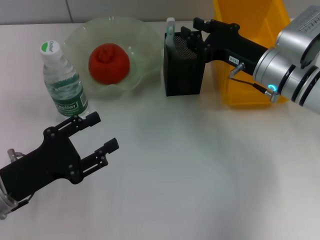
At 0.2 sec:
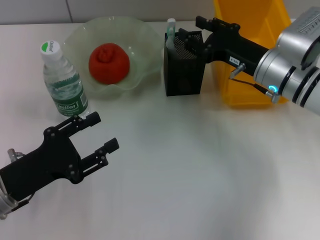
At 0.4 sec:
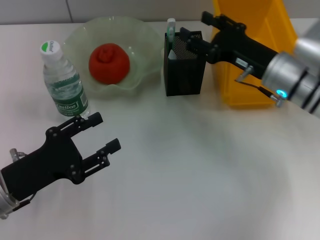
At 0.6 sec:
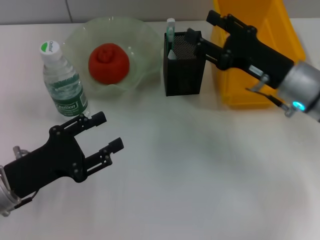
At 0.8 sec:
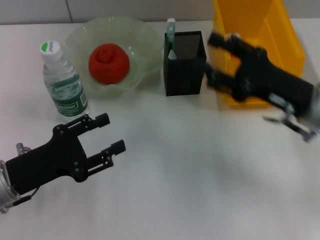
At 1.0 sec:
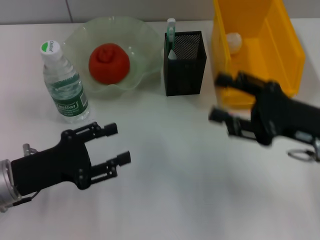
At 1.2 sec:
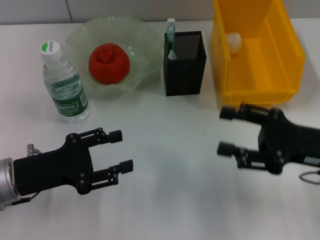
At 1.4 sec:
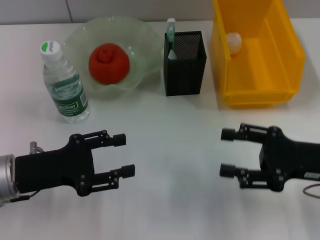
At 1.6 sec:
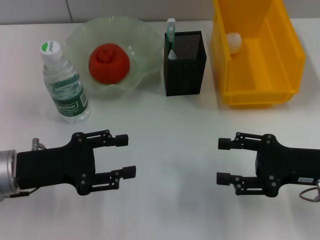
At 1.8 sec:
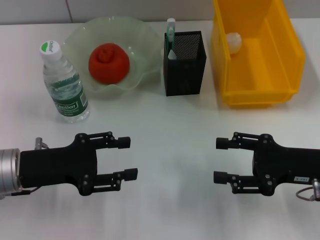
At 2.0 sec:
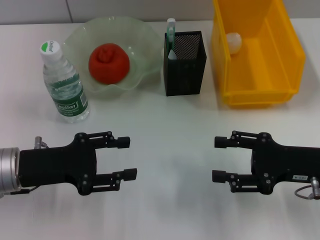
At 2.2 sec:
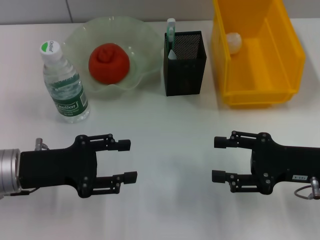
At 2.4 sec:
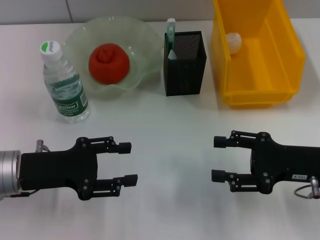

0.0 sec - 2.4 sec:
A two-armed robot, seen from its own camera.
0.0 sec - 1.2 sec: The right gripper goes approximately 15 cm backward and to the right, and opens.
1.2 sec - 2.4 sec: There are only small adjustments of the grippers.
